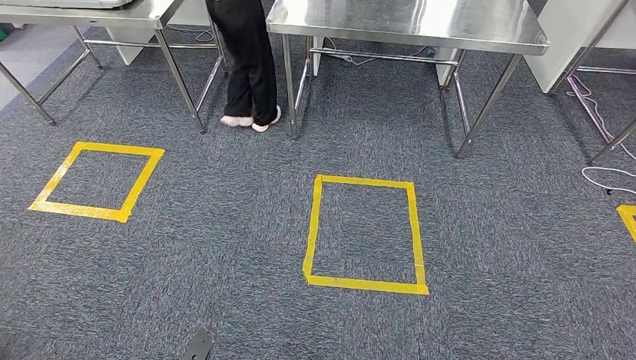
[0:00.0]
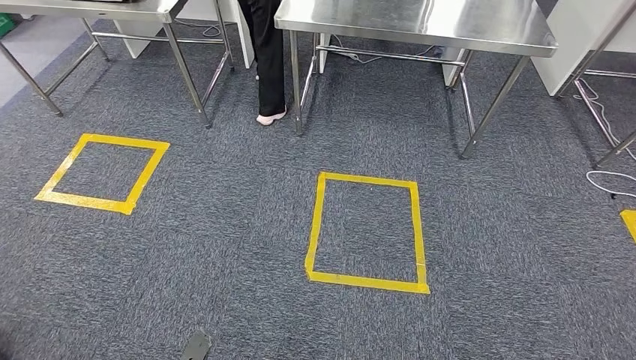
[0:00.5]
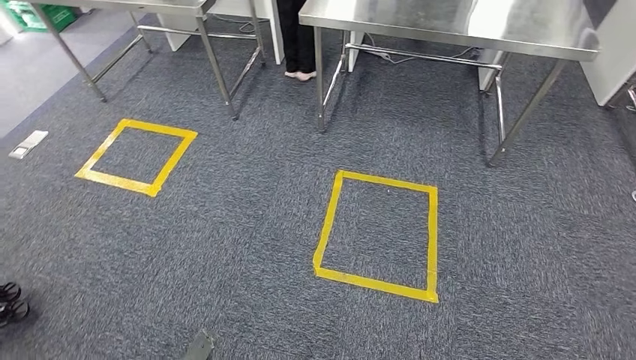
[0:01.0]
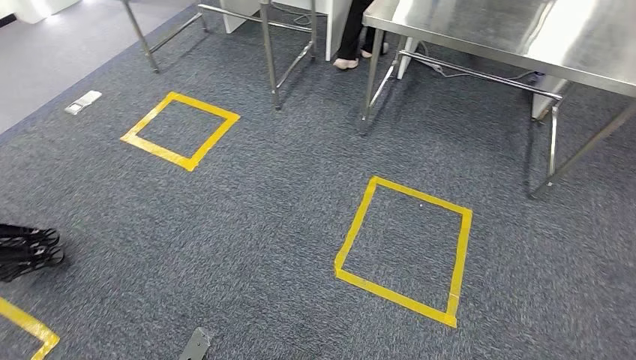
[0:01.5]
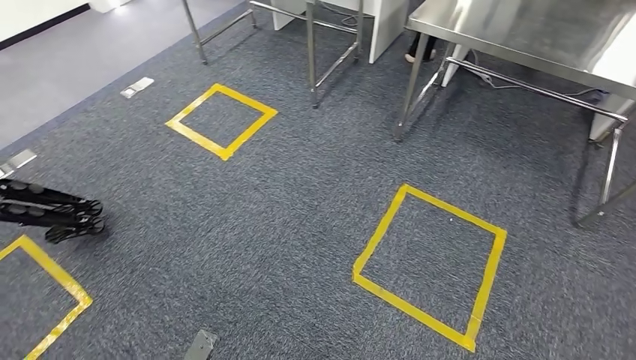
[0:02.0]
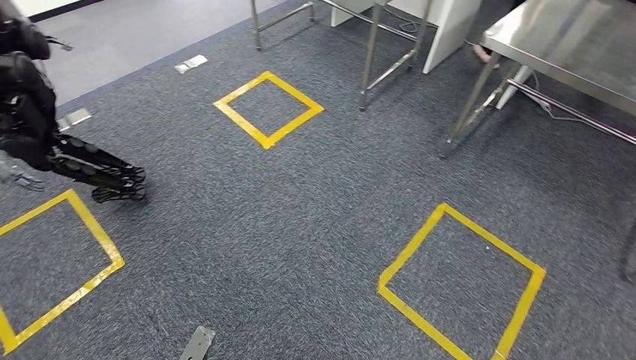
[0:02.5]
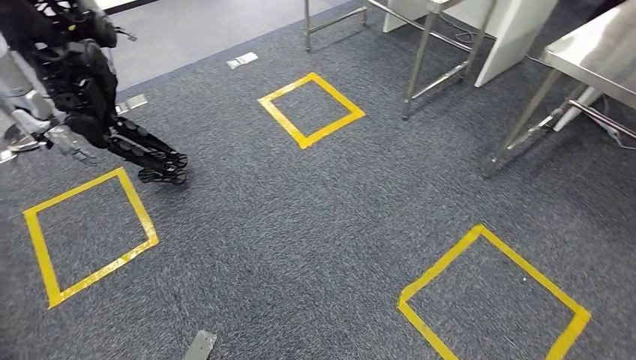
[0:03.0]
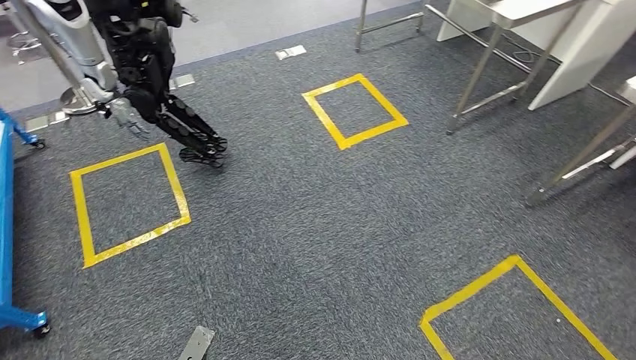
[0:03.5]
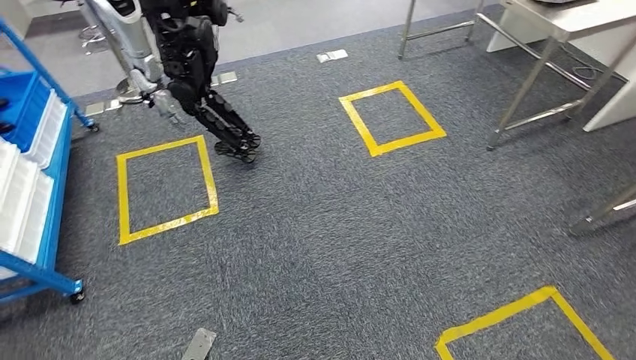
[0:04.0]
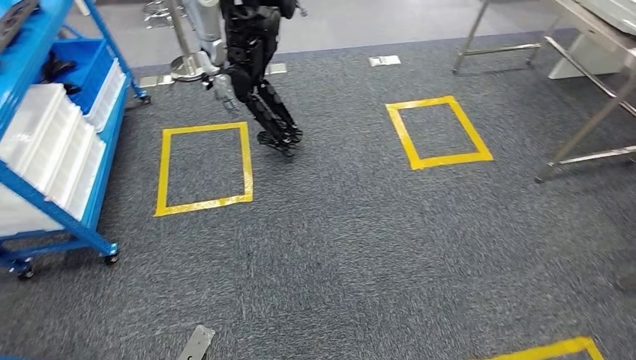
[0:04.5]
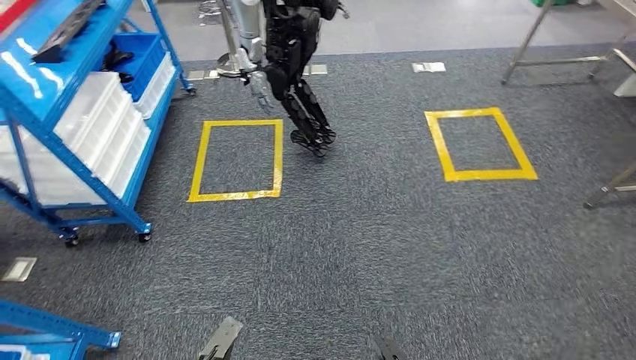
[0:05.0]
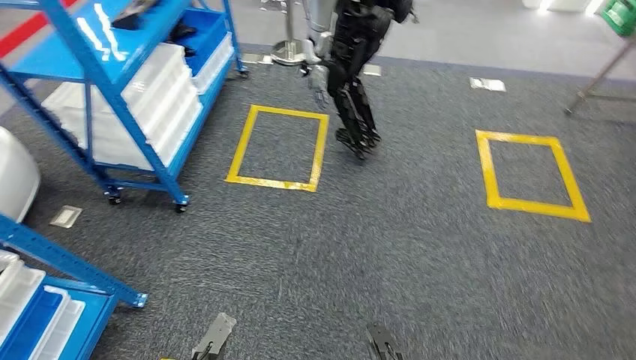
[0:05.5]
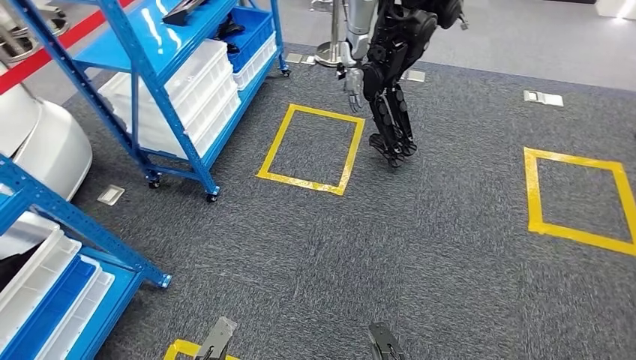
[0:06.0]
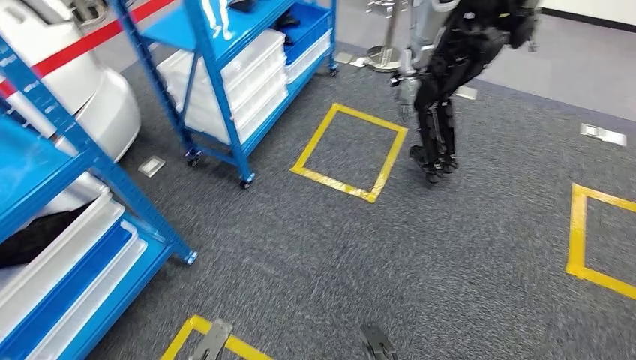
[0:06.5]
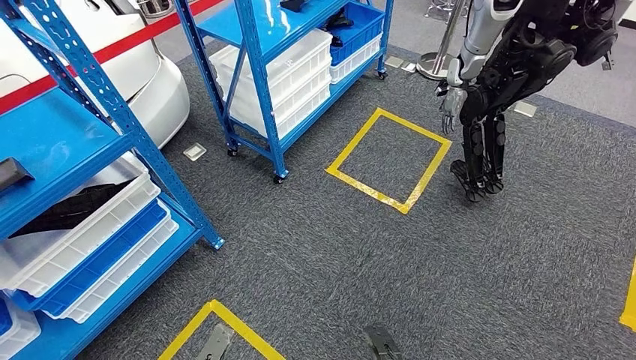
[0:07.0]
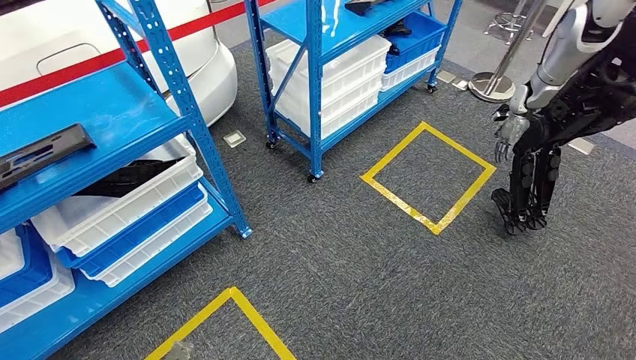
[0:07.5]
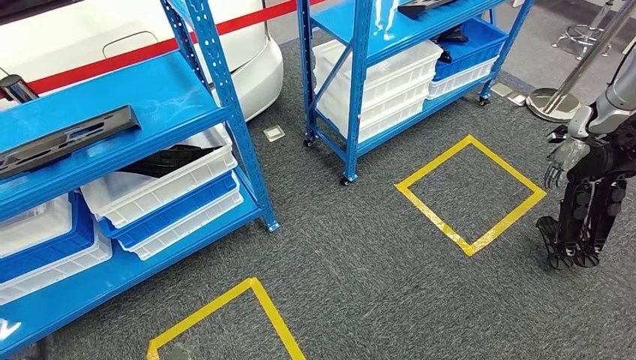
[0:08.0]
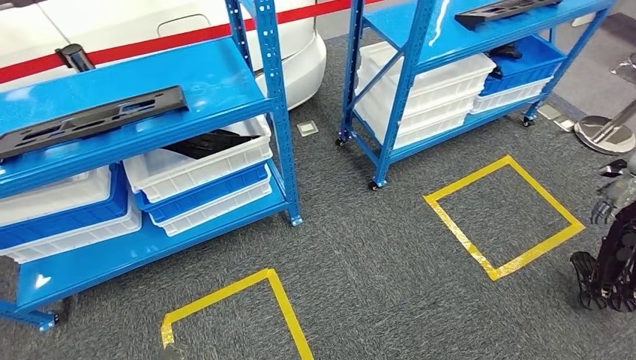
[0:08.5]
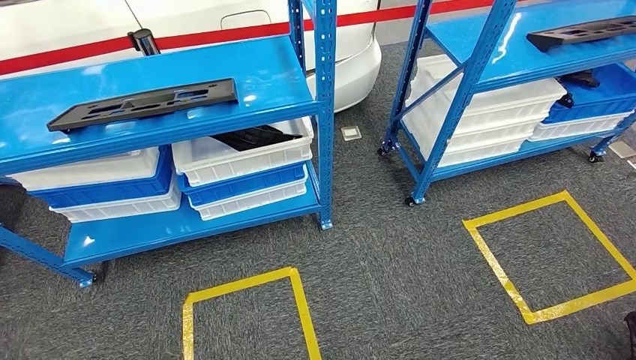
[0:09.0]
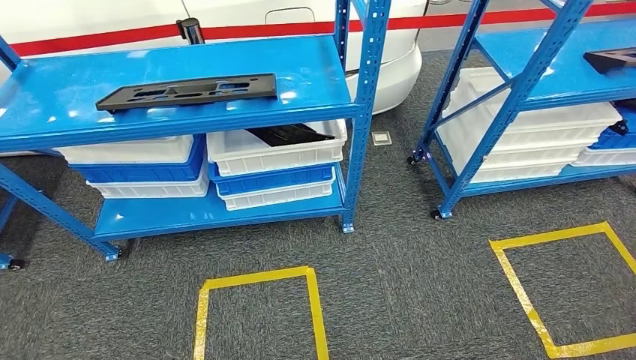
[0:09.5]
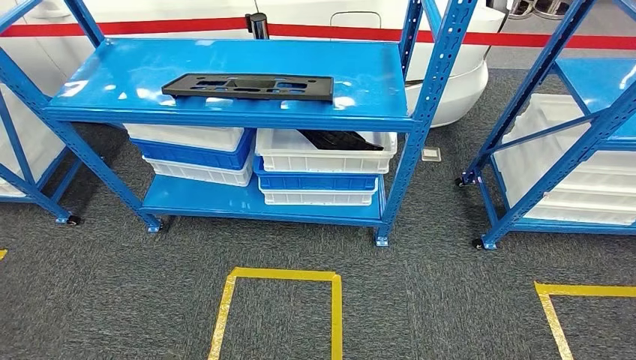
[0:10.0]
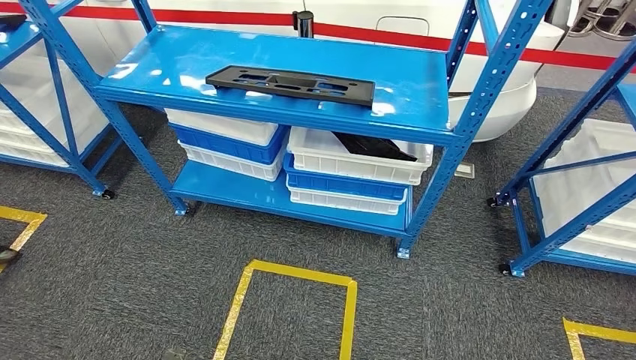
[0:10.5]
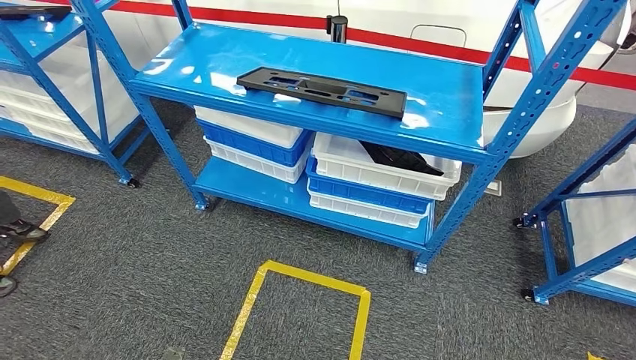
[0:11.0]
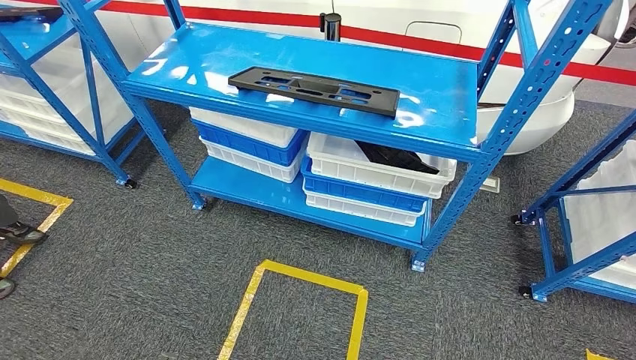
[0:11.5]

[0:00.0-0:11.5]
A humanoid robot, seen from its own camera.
Step, 0:00.0 to 0:11.5: Return to the initial position at the shelf.
